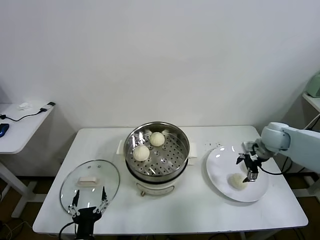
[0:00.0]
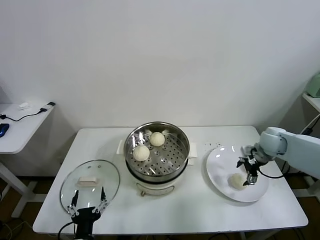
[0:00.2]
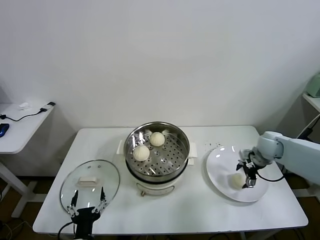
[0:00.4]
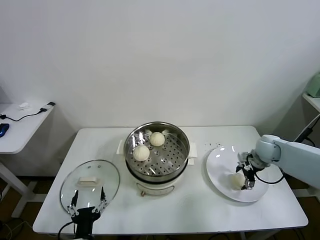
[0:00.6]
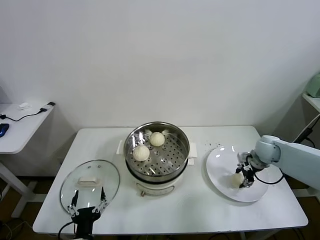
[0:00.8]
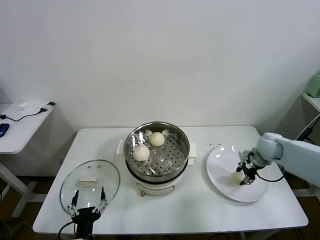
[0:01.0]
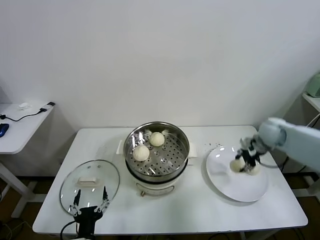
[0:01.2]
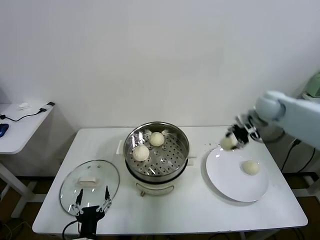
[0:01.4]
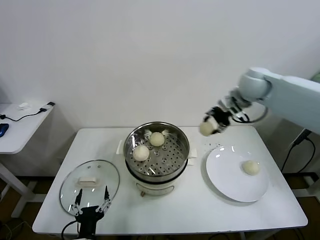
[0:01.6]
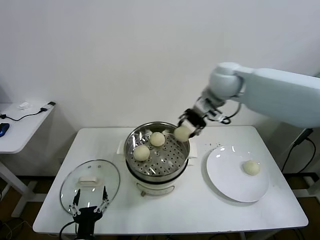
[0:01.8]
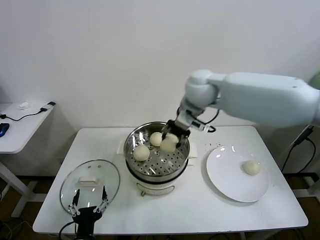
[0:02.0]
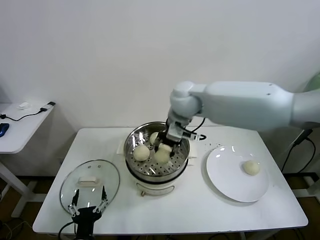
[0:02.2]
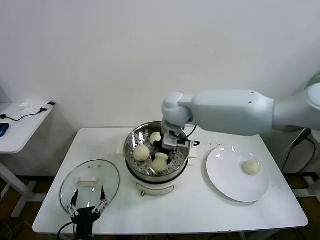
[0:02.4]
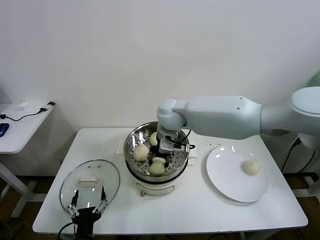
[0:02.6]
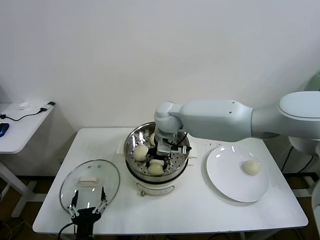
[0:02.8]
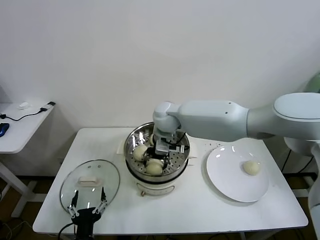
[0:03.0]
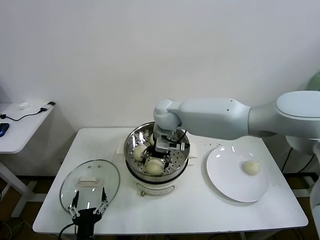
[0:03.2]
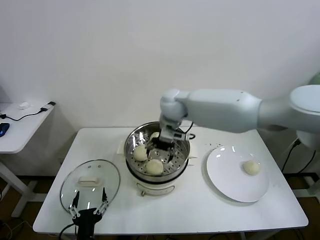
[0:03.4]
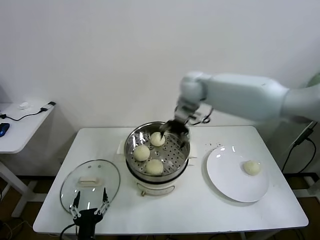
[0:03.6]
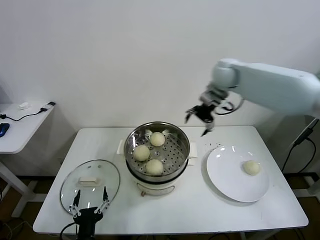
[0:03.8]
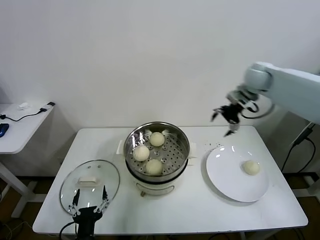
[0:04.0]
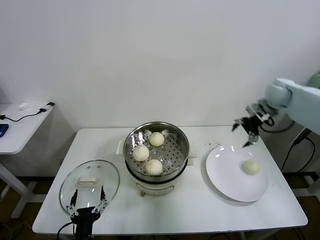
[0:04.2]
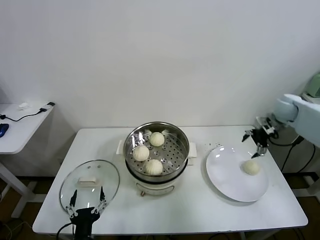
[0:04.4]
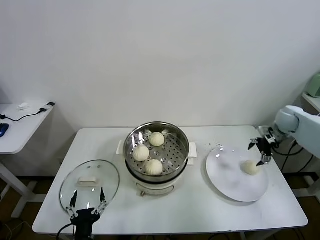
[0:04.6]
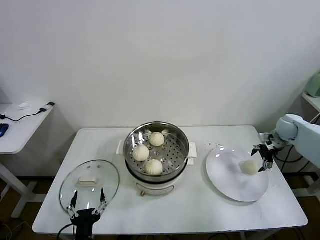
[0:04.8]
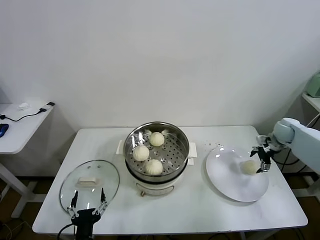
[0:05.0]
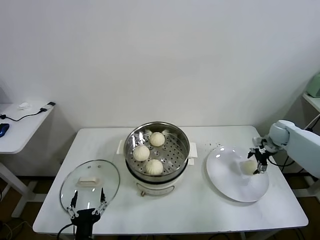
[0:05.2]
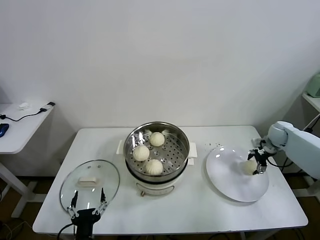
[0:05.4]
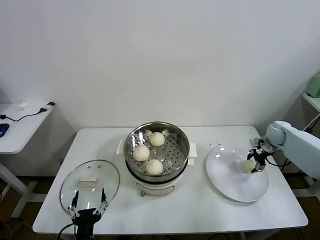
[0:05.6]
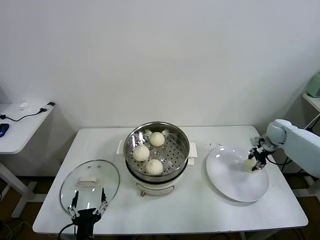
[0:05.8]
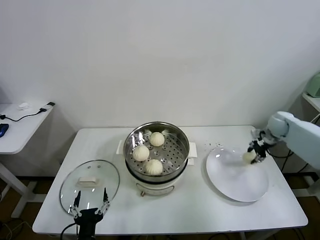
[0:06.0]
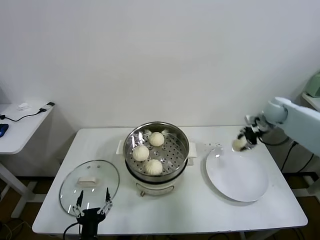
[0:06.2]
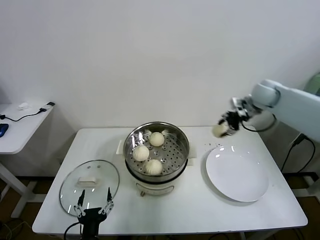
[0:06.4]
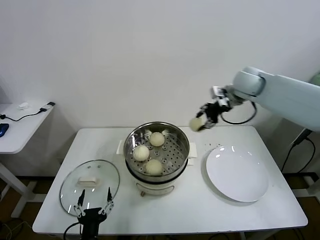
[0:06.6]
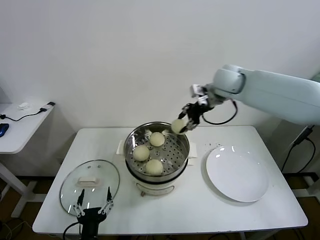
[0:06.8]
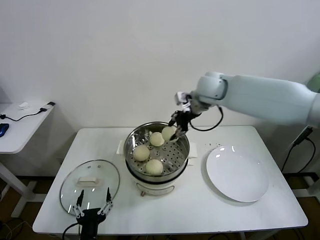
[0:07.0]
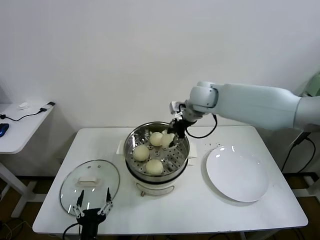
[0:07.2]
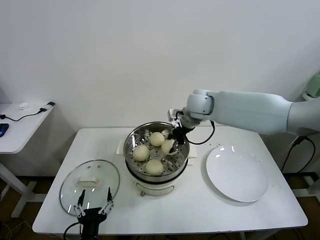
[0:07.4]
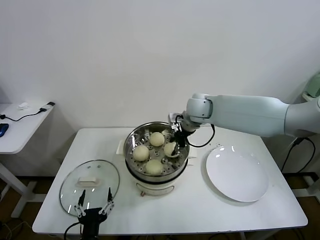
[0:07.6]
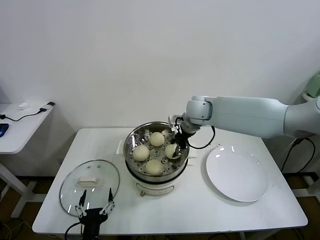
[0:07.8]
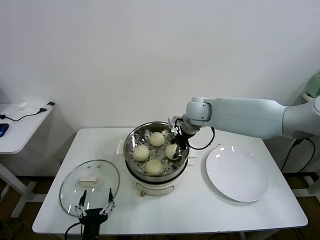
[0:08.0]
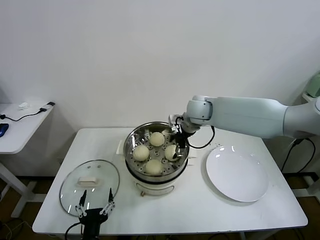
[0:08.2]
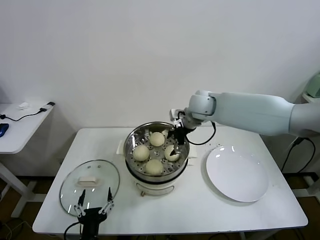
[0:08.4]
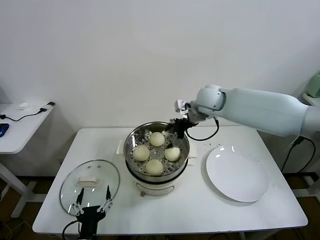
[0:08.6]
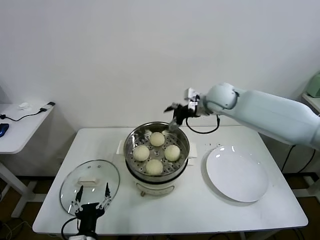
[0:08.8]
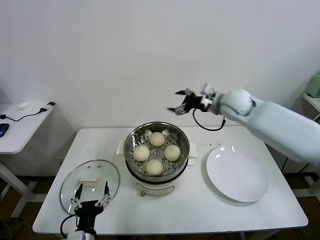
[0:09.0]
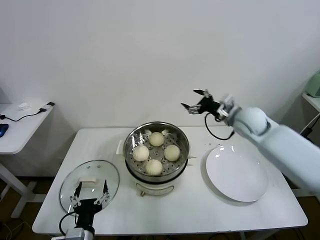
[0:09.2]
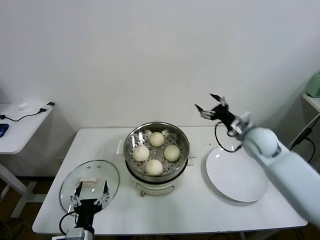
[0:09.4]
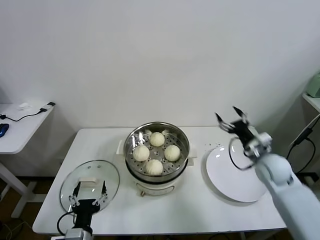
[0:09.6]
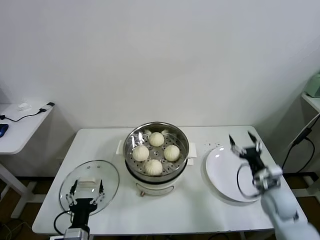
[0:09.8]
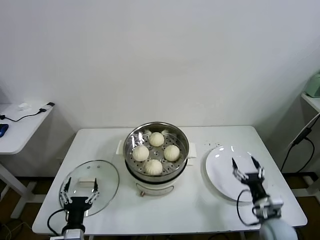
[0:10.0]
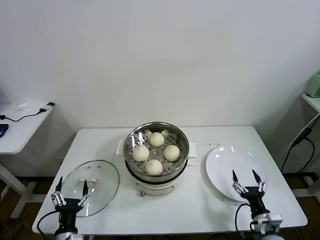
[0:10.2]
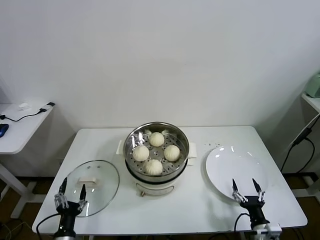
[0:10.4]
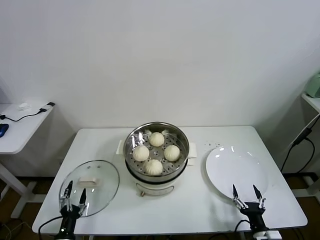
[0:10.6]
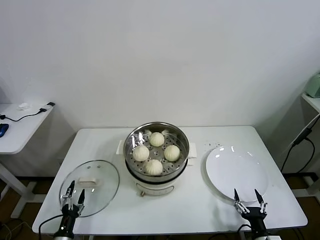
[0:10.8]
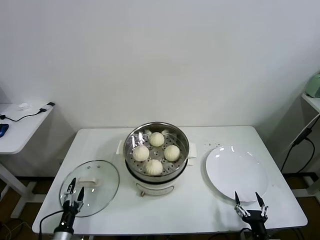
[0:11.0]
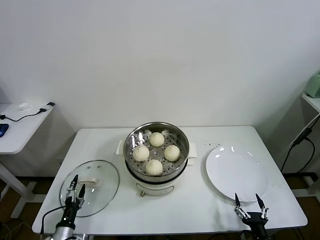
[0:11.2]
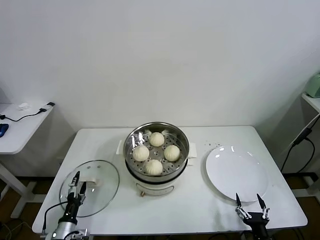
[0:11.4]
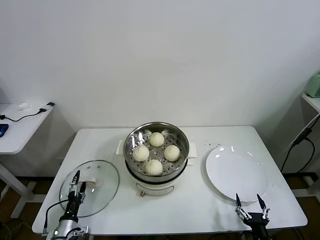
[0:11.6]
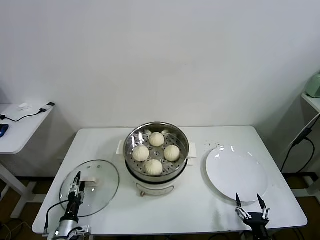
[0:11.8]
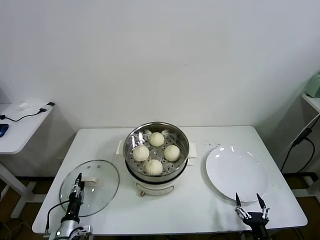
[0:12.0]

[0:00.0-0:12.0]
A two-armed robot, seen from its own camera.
Task of the whole recording: take steamed baozi put them in steamer.
Step, 1.0 to 3.2 s: Place the baozi on the steamer with right gripper.
Step, 3.4 to 5.6 s: Grasp the baozi in the plate with right gripper.
Step, 5.8 to 8.2 s: Place the baozi on the steamer with right gripper.
0.0 to 1.6 s: The right gripper shifts some 25 cm upward and to the left, and closes.
1.6 to 3.0 s: The right gripper travels to the left and downward by about 25 cm, and opens its fingers.
3.0 to 4.4 s: The right gripper heads to the right, covering approximately 40 cm.
4.4 to 6.0 s: The right gripper is displaced downward by roughly 5 cm, and closes up.
6.0 to 7.6 s: The right gripper is displaced to the left by approximately 35 cm.
7.6 to 9.0 s: The right gripper moves to the right, approximately 10 cm, and opens up.
9.0 to 10.4 s: The right gripper travels backward and downward by about 50 cm. The left gripper is displaced to the left and downward by approximately 15 cm.
10.4 to 12.0 s: The right gripper shifts approximately 5 cm backward. Meanwhile the left gripper goes roughly 10 cm downward and forward, and closes.

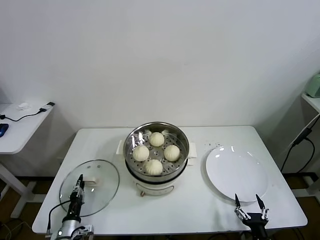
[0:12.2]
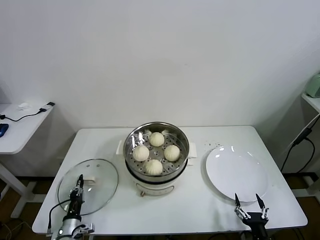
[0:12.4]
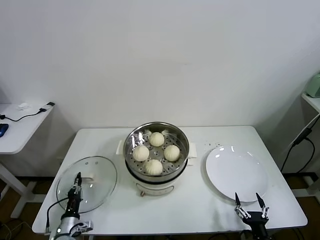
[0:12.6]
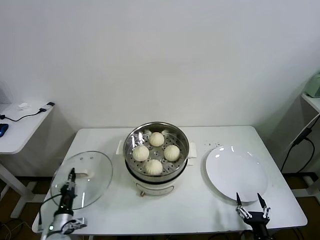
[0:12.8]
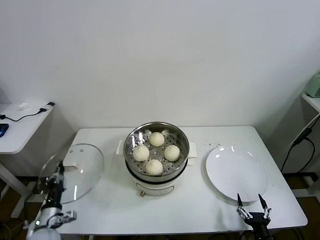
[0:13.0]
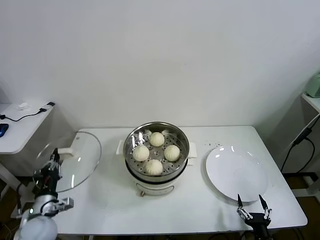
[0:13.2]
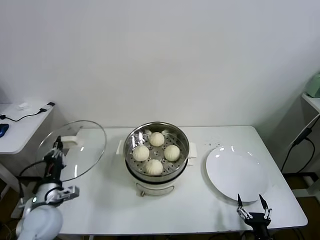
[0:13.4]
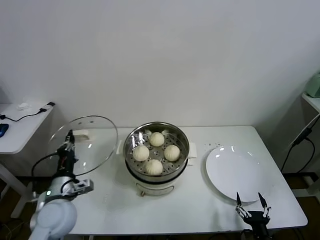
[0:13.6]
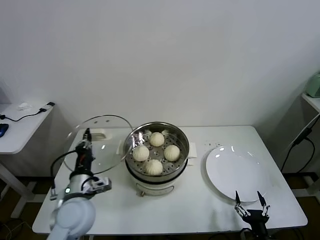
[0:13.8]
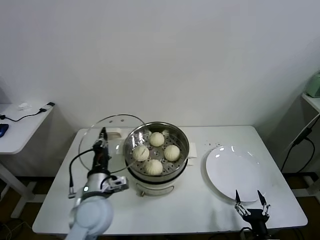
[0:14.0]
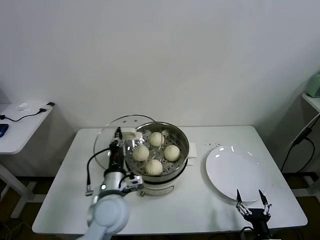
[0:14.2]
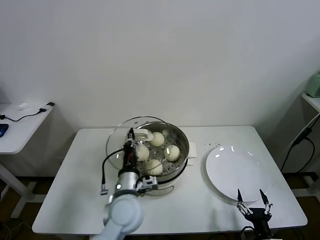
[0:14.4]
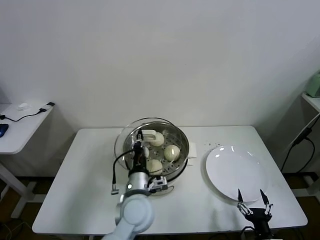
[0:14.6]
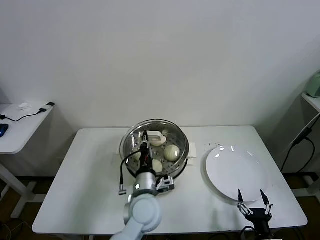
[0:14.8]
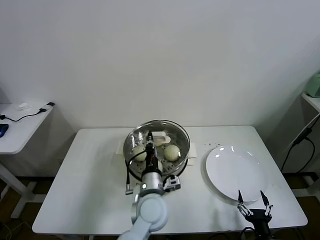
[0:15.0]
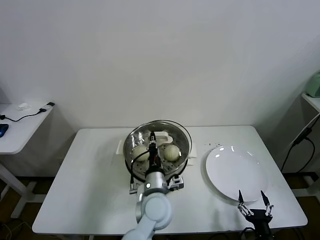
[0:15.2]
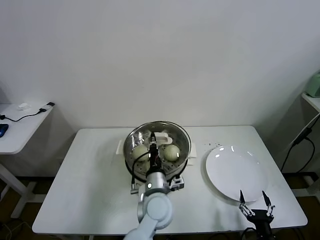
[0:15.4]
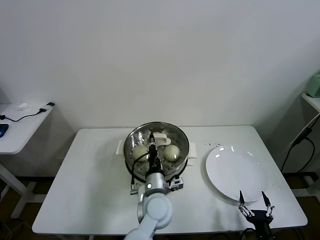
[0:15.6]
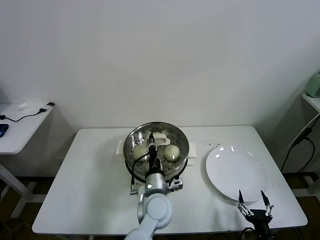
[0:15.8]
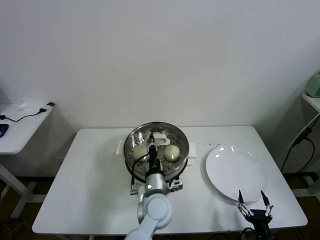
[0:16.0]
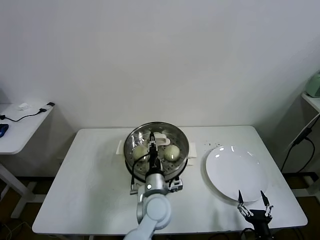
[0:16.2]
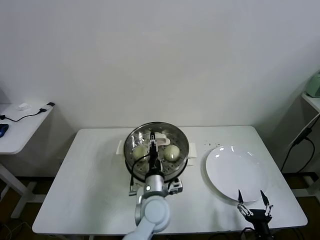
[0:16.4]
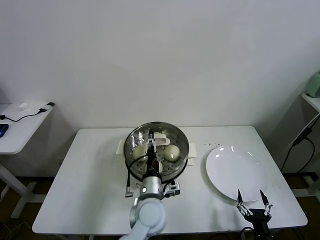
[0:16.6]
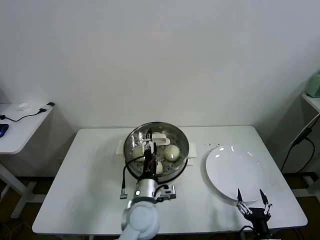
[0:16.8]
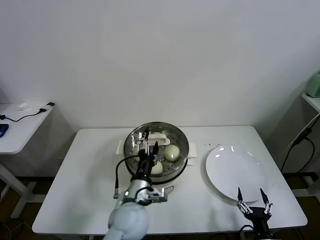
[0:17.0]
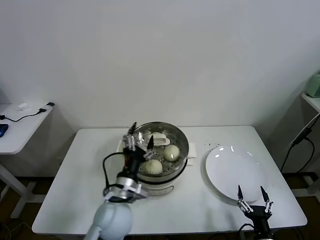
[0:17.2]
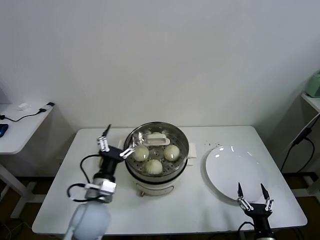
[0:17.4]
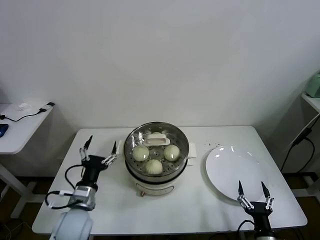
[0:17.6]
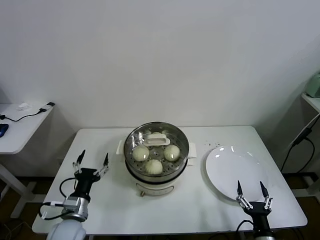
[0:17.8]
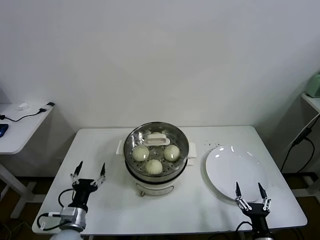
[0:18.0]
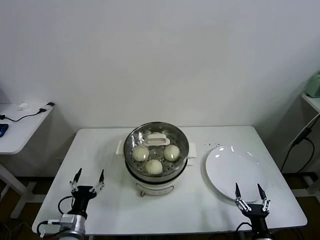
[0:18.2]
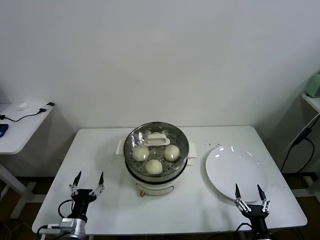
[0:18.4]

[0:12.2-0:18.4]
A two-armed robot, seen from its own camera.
Task of the whole recording: take steamed baozi put them in steamer.
Step, 12.6 to 16.2 s: Place the pot lid on the steamer with left gripper.
12.2 to 13.8 s: The left gripper goes approximately 25 cm upward and to the right.
13.8 to 15.4 s: The left gripper travels to the right by some 25 cm.
15.4 to 16.8 s: The left gripper opens up.
16.8 to 18.4 s: The left gripper is displaced to the left and downward by roughly 30 cm.

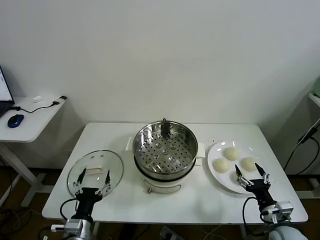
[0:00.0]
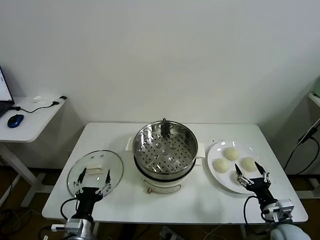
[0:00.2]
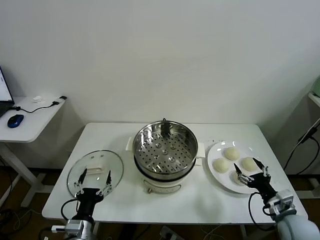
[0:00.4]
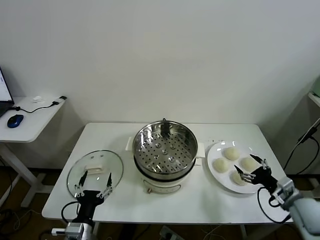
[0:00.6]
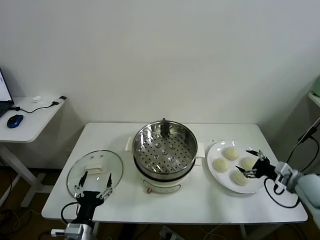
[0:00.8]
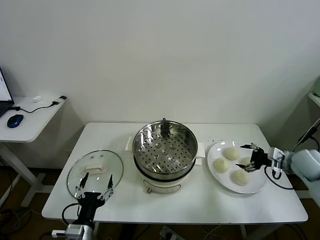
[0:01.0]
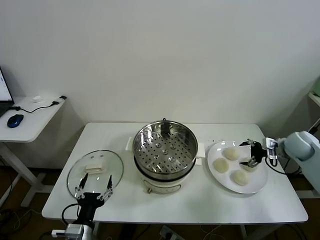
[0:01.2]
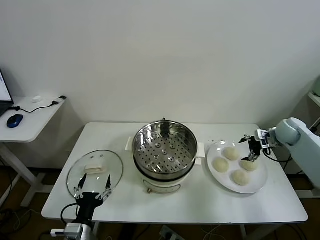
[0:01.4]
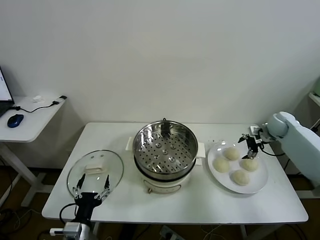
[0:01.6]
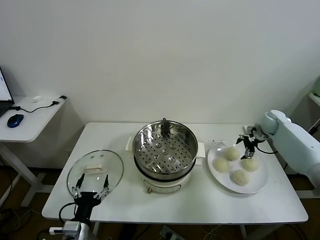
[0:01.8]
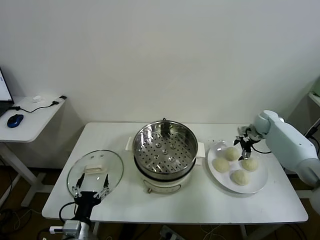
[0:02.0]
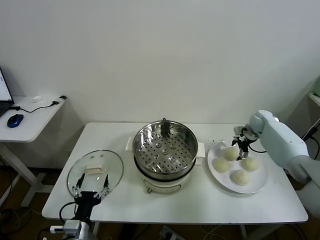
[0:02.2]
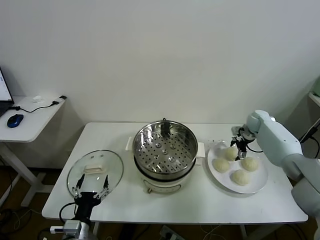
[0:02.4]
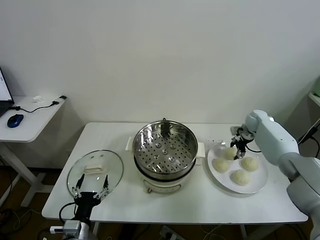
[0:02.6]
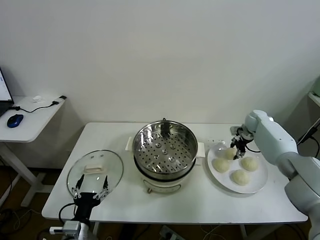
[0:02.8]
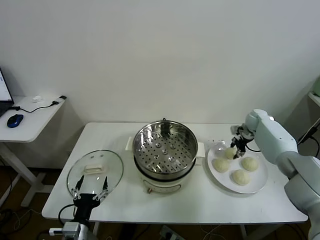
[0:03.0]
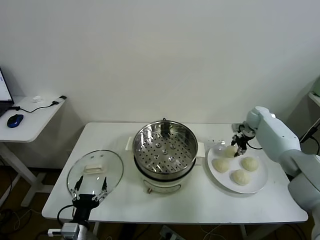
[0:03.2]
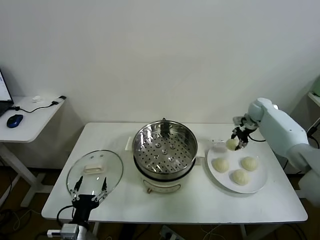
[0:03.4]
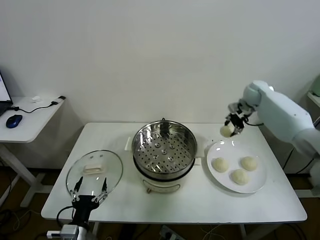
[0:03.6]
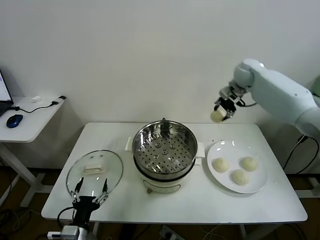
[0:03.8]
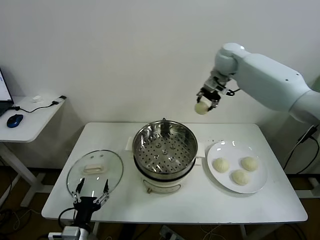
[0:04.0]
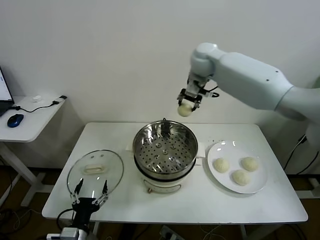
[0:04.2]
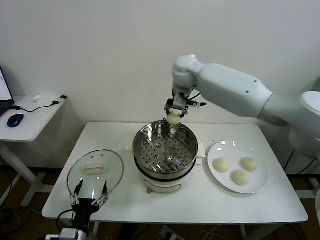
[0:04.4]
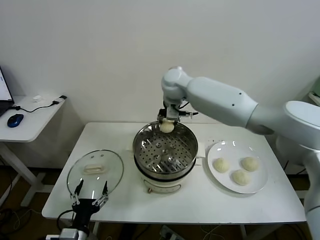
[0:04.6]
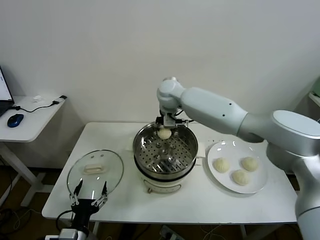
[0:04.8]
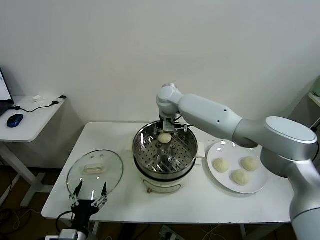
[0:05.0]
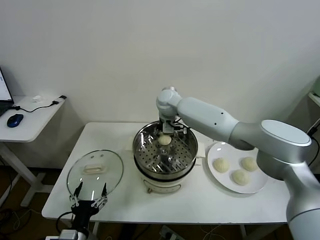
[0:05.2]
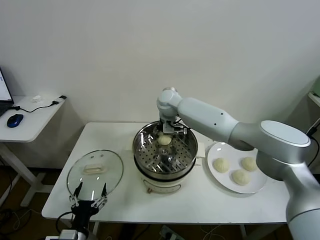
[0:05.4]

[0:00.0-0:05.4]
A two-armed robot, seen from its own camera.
Task of the whole recording: take steamed baozi put them in steamer.
Step, 0.0 to 2.6 s: Grasp the baozi in the plate with right gripper.
1.4 to 2.8 s: The right gripper is displaced forward by some 5 cm, and closes its fingers.
2.8 to 4.0 s: The right gripper heads upward and to the left, covering approximately 40 cm.
4.0 to 5.4 s: The right gripper travels downward and to the left by approximately 20 cm, and opens up.
